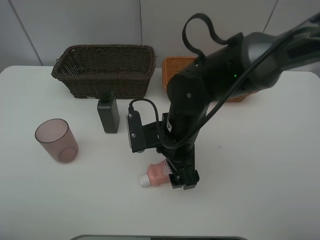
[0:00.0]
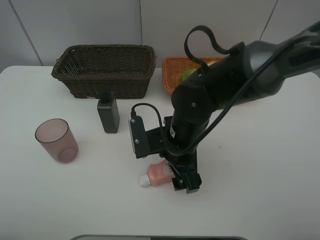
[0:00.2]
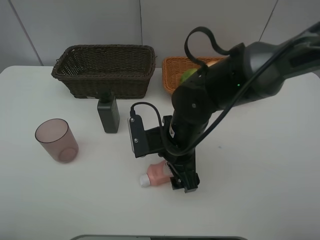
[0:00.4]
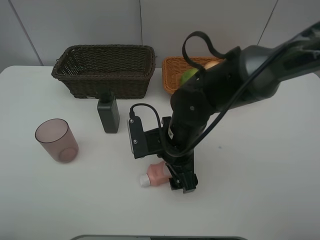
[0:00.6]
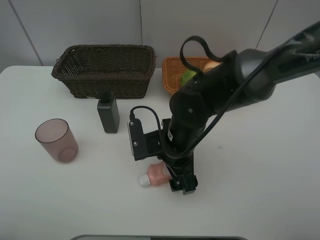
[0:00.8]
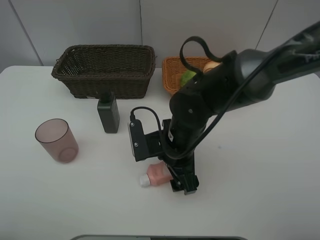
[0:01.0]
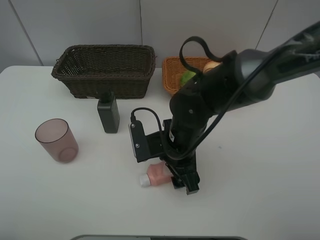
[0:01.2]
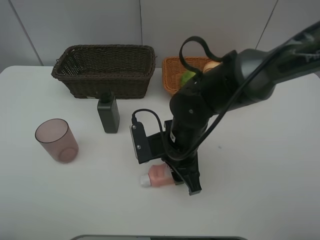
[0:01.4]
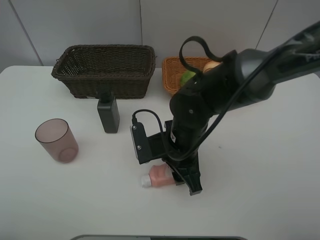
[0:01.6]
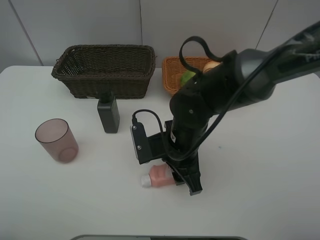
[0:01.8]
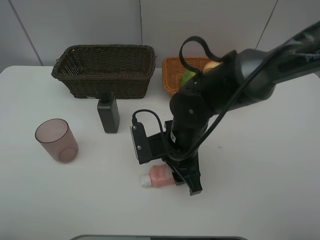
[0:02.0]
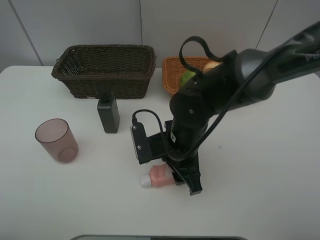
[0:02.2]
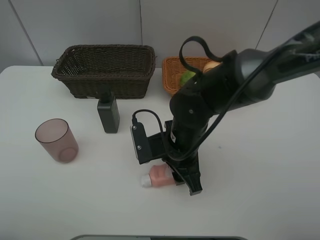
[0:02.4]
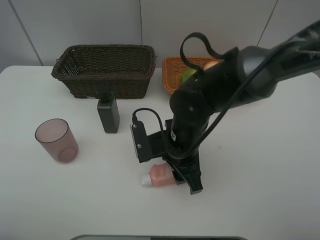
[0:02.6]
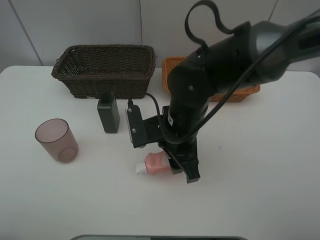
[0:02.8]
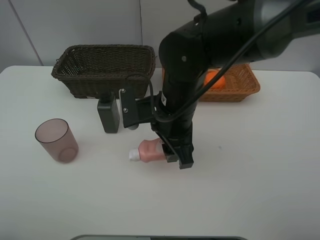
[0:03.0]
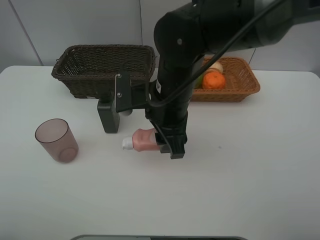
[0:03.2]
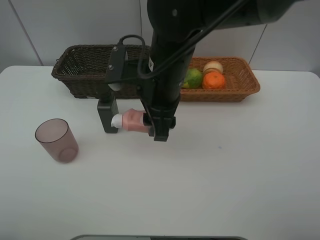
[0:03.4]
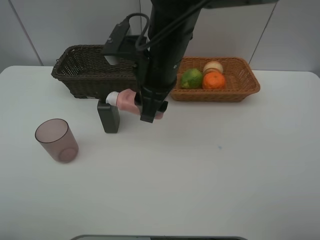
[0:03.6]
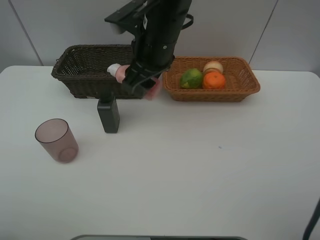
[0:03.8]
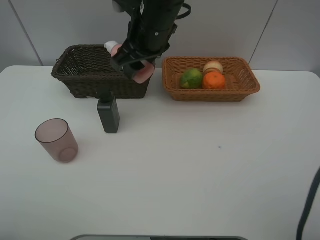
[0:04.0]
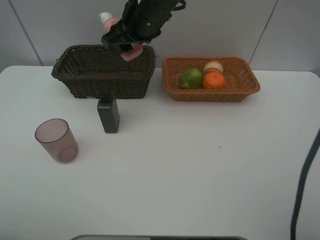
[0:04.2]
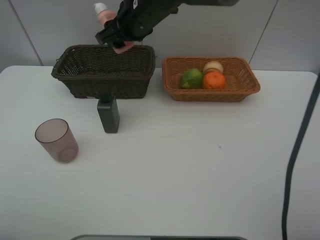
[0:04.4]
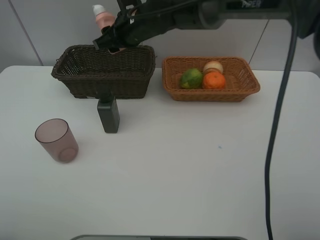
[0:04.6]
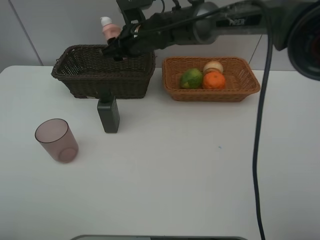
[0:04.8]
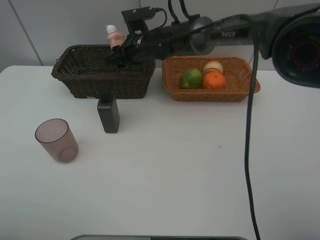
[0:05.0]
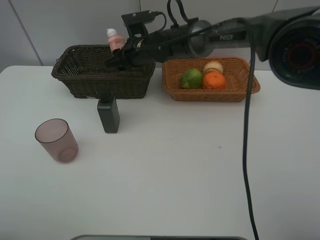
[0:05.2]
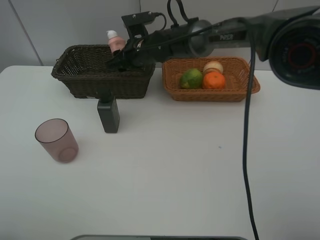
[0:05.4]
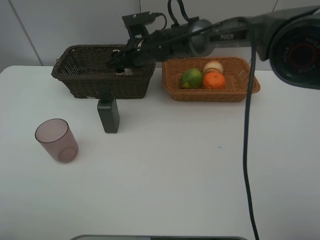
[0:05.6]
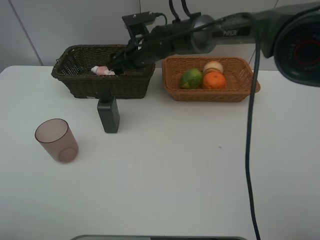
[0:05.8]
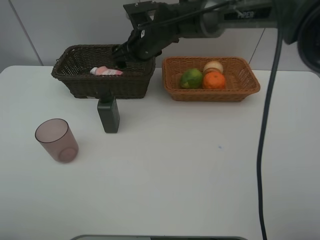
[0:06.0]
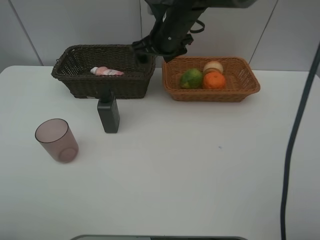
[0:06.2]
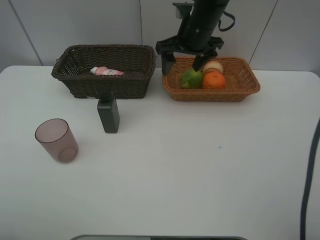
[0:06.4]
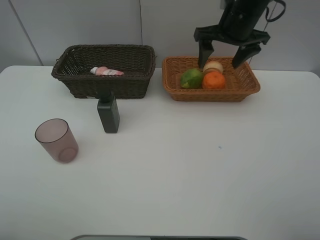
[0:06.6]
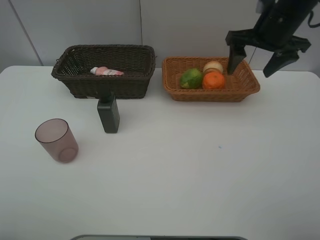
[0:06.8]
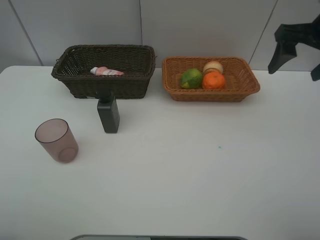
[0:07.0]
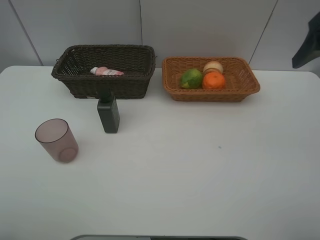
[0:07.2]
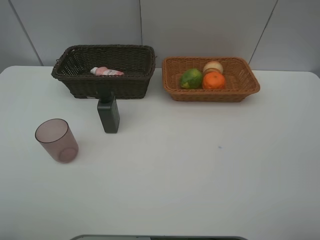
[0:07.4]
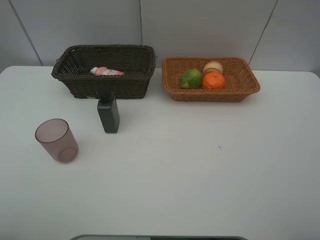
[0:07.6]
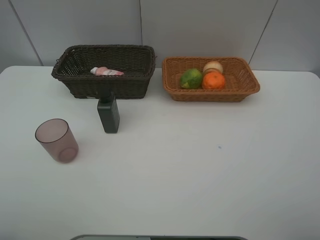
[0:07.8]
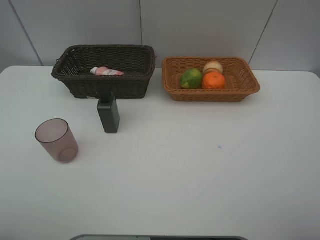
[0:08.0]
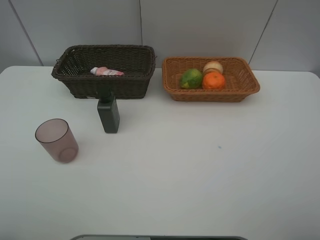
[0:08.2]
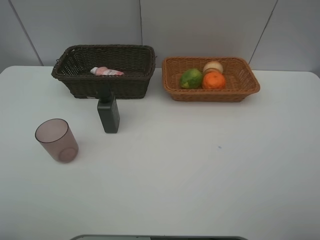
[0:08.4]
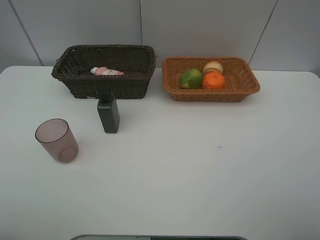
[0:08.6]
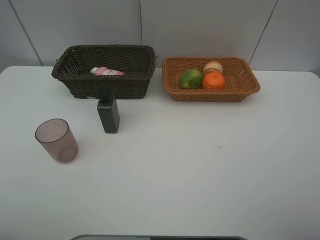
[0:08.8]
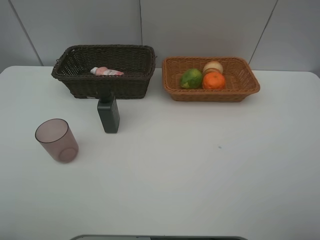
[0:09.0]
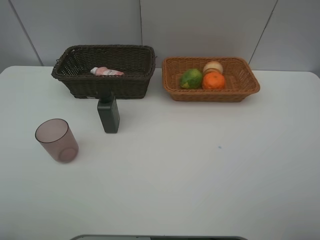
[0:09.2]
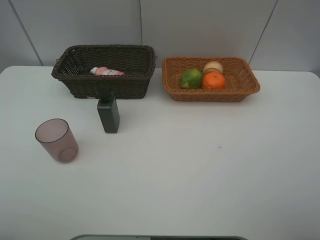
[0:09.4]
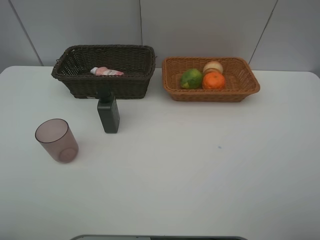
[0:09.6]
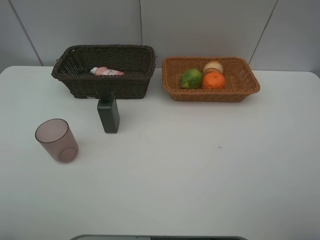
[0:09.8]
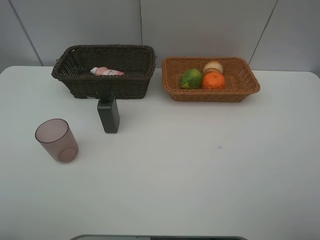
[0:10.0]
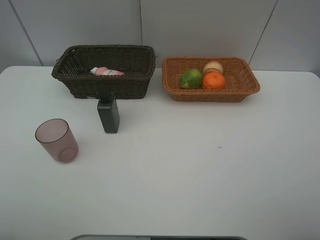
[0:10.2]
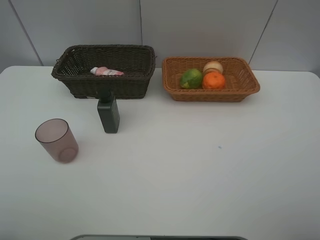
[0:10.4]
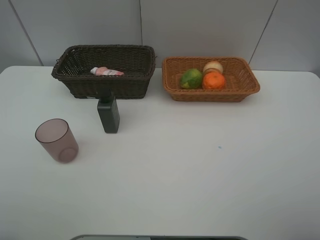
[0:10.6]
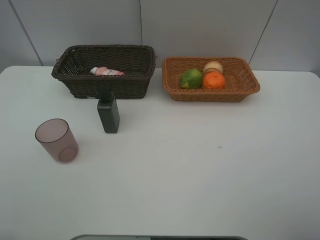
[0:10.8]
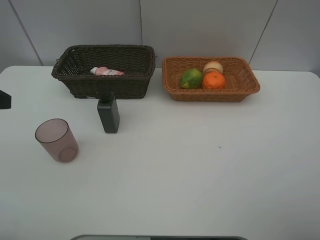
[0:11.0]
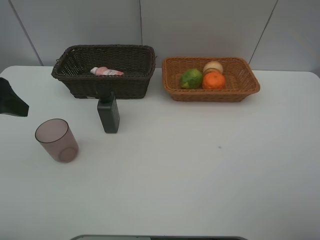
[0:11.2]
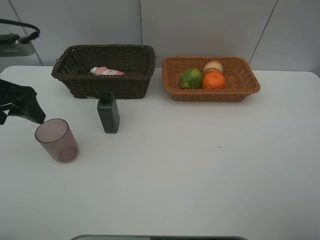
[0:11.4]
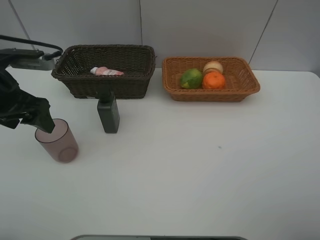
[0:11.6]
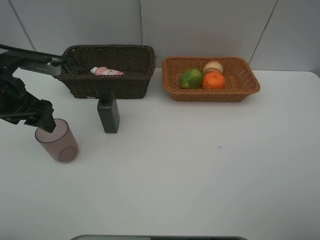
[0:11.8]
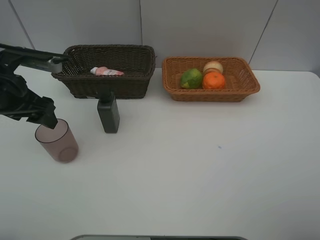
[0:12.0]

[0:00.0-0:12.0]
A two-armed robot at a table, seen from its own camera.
Task of the whole recording: place multiple objects separately in different baskets.
0:00.0 to 0:01.6: The right gripper closes its fingers.
0:01.6 to 0:03.0: The right gripper shifts some 5 cm upward.
0:03.0 to 0:04.4: The right gripper is displaced forward and upward by about 15 cm.
0:04.4 to 0:06.0: The right gripper shifts some 5 cm downward, and opens up.
0:06.0 to 0:07.6: The right gripper travels backward, to the right and upward by about 50 cm.
0:10.4 to 0:12.0: The left gripper is displaced forward by roughly 25 cm.

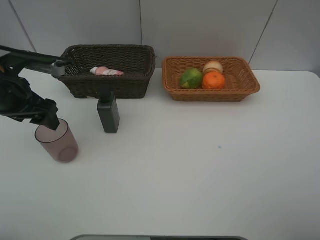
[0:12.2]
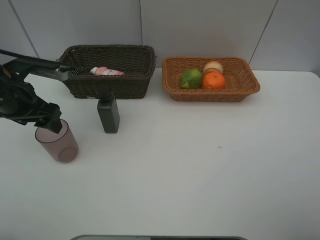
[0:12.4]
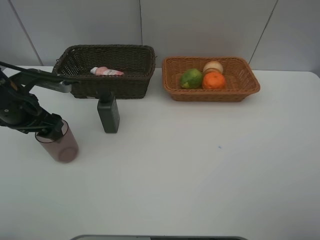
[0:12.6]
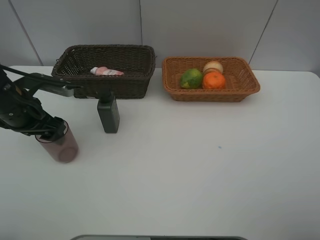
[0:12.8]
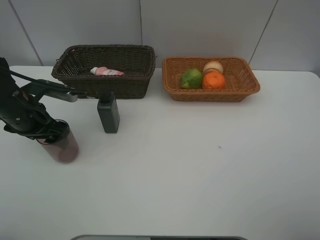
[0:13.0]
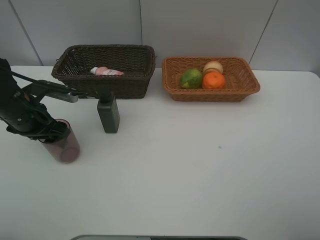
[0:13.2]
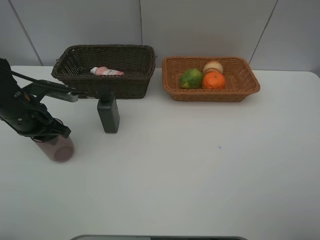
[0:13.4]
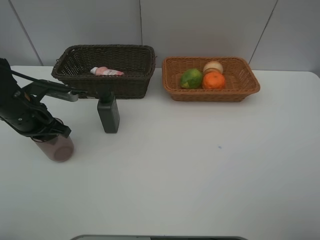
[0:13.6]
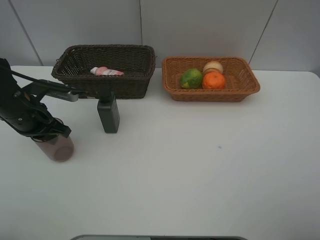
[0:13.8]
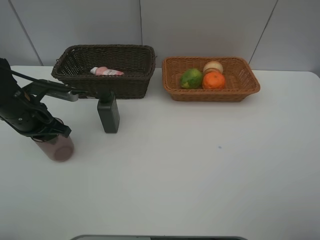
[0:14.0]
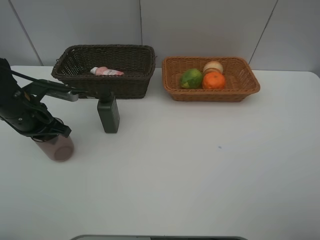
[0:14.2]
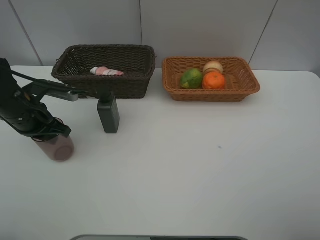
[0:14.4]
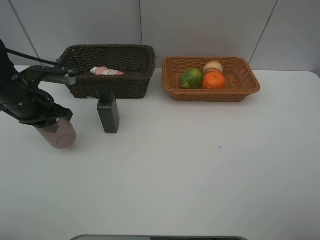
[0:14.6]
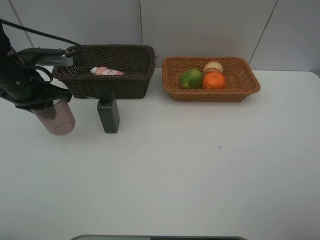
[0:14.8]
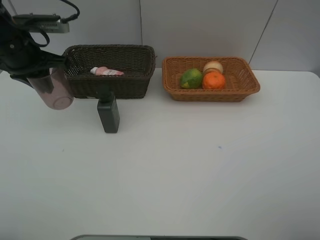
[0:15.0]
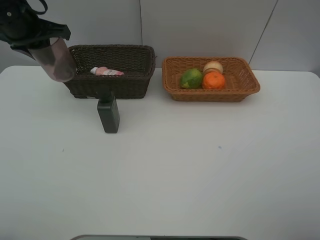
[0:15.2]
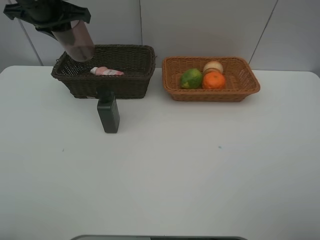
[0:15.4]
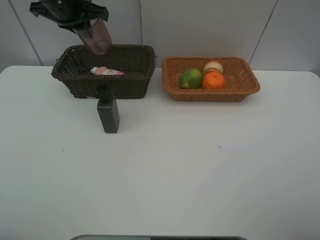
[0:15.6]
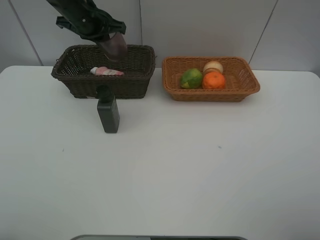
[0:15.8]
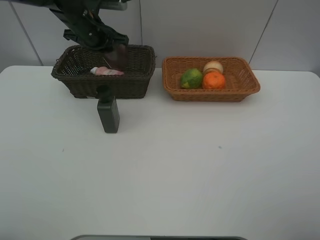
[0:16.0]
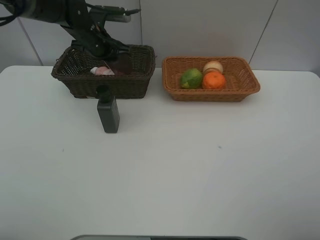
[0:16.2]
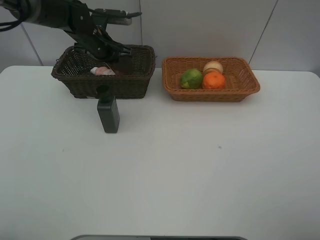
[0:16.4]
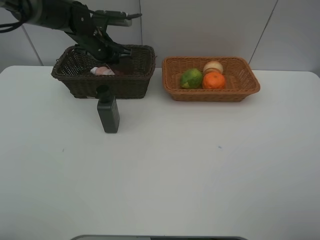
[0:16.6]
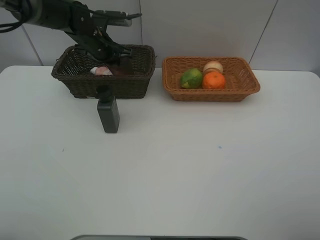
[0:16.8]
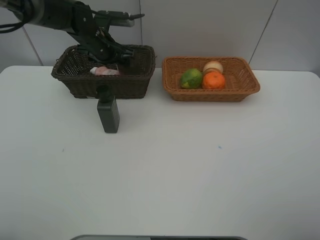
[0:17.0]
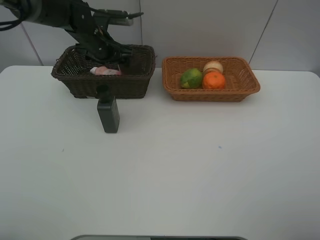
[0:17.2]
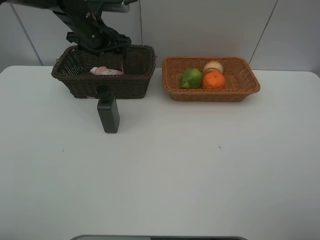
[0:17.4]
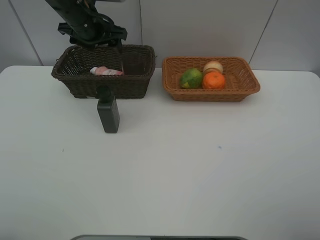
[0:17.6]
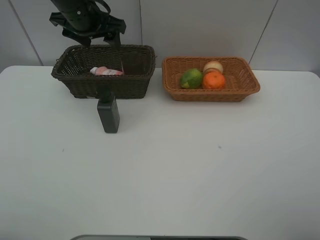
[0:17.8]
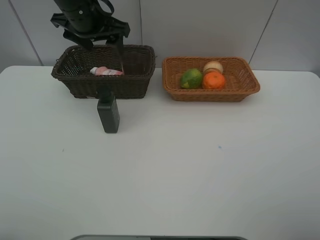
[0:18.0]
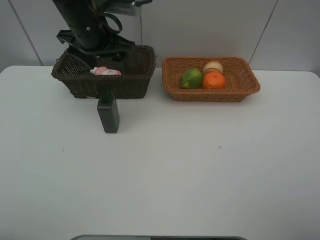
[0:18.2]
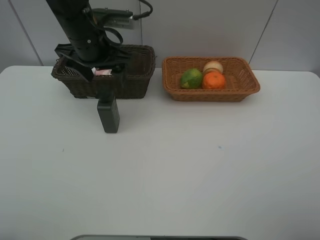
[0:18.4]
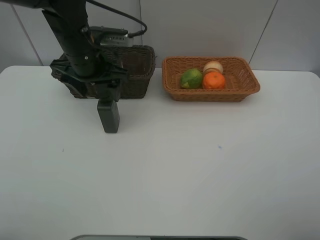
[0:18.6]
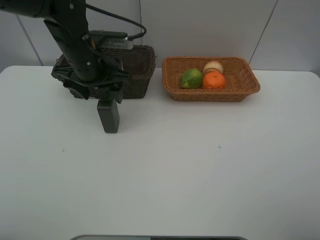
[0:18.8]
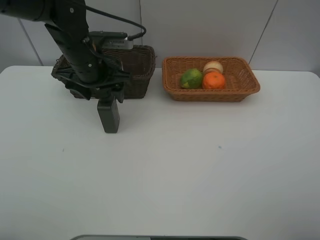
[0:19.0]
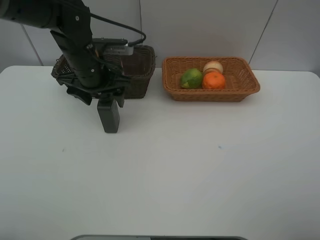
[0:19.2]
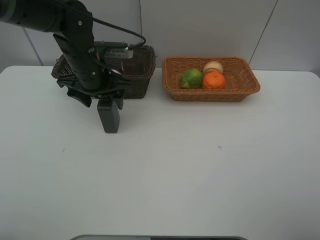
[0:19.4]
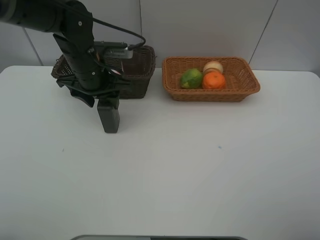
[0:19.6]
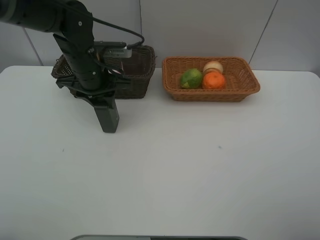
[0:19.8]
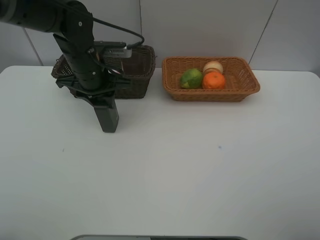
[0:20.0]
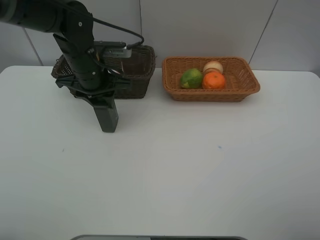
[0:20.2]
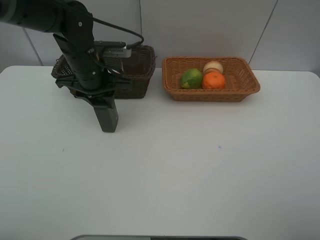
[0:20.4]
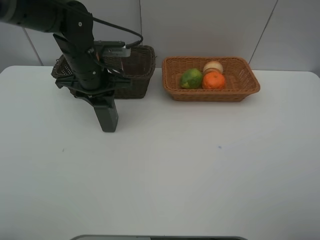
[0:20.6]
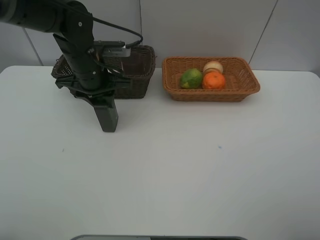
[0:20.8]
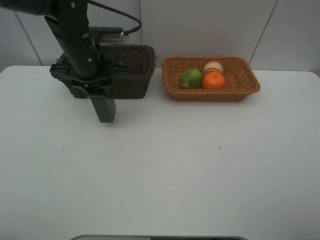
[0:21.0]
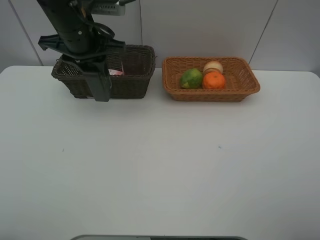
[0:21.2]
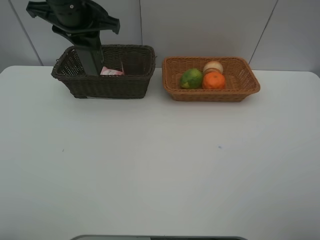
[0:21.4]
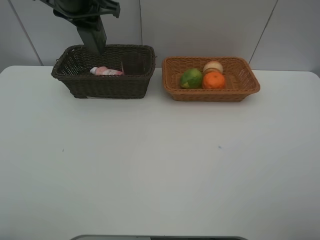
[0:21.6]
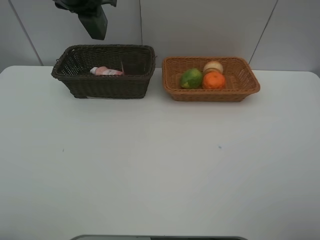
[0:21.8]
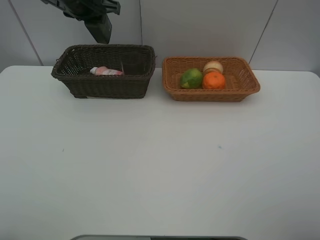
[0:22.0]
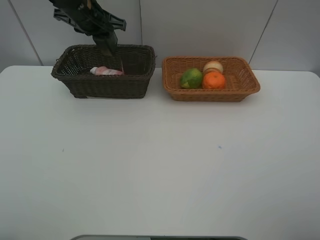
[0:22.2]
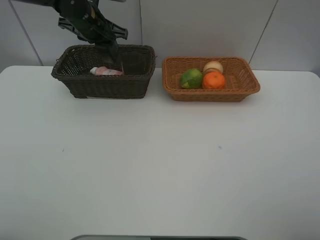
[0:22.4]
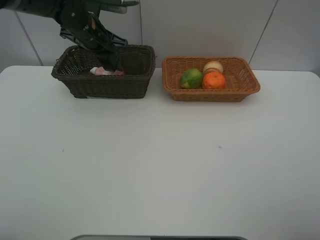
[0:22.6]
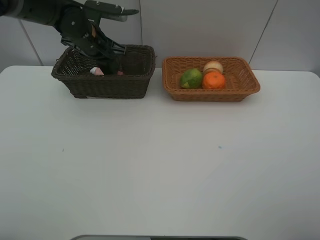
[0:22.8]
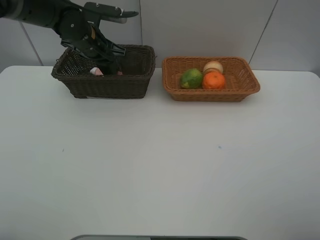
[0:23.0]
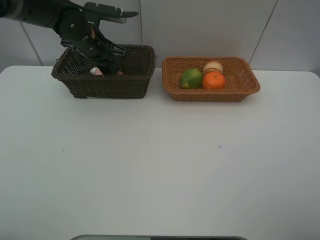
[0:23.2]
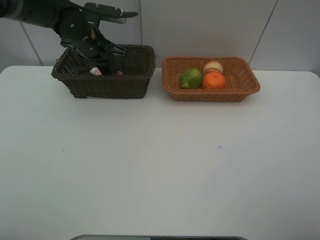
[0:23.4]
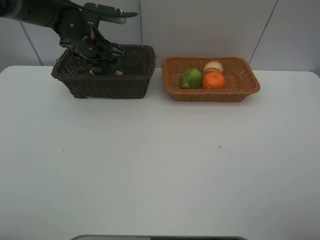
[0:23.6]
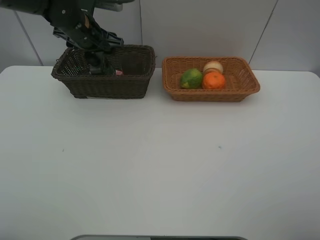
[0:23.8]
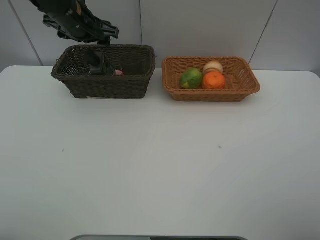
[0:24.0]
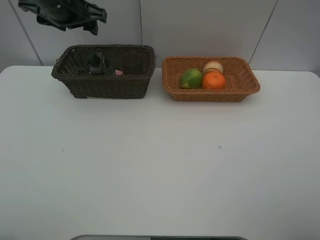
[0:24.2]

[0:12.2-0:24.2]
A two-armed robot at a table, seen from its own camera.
Task of the whole recording: place multiple objects separately in different baskets.
0:12.2 to 0:13.8: The left gripper shifts about 5 cm downward, and closes.
0:13.8 to 0:15.2: The left gripper shifts approximately 20 cm upward and forward.
0:15.2 to 0:16.6: The left gripper moves downward, forward and to the right, some 20 cm.
0:16.6 to 0:18.2: The left gripper is displaced backward and upward by approximately 15 cm, and opens its fingers.
0:18.2 to 0:19.8: The left gripper shifts approximately 10 cm downward, and closes.
0:19.8 to 0:21.2: The left gripper travels upward by roughly 10 cm.
0:21.2 to 0:22.6: The left gripper is displaced forward and downward by roughly 10 cm.
0:22.6 to 0:24.2: The left gripper travels upward and backward by roughly 10 cm, and opens up.
